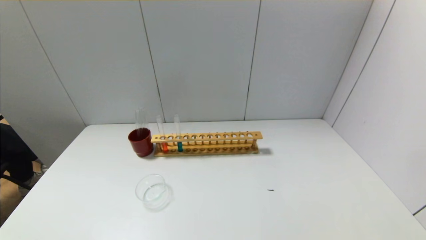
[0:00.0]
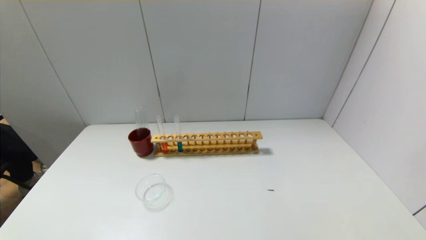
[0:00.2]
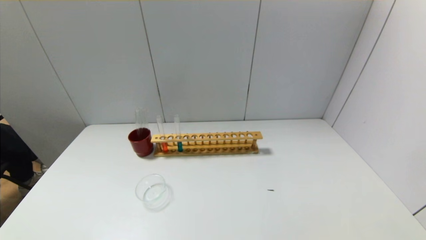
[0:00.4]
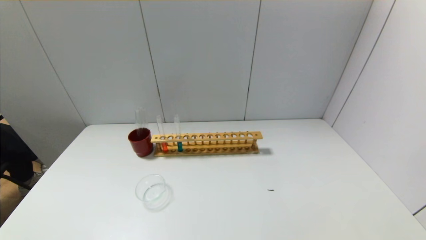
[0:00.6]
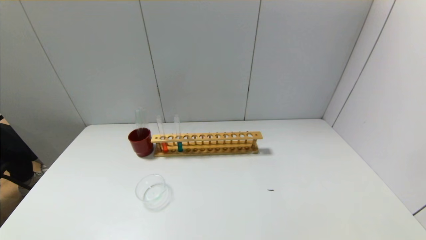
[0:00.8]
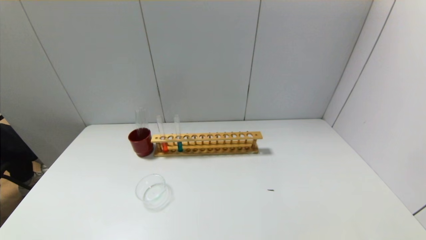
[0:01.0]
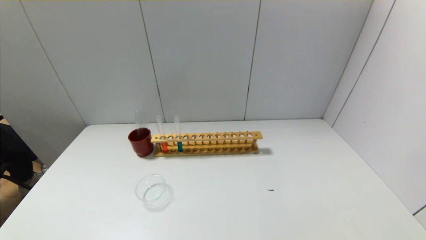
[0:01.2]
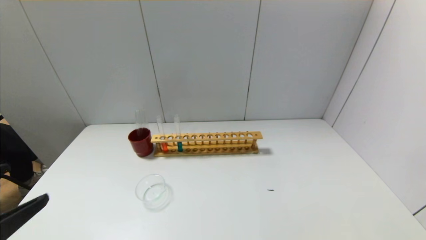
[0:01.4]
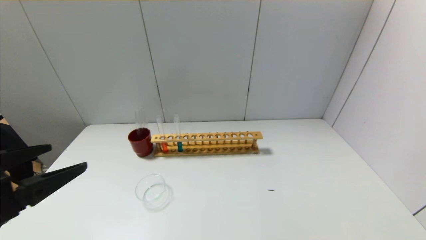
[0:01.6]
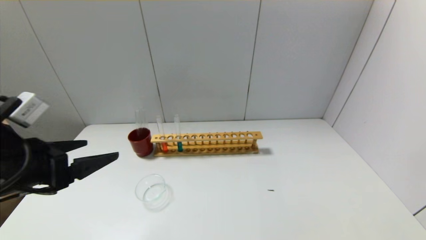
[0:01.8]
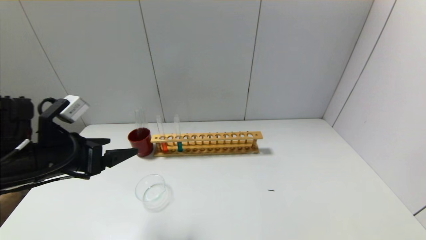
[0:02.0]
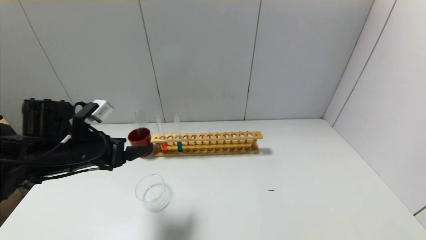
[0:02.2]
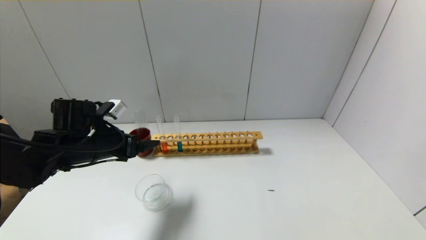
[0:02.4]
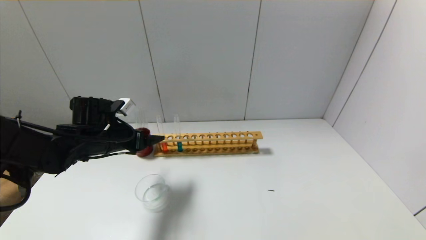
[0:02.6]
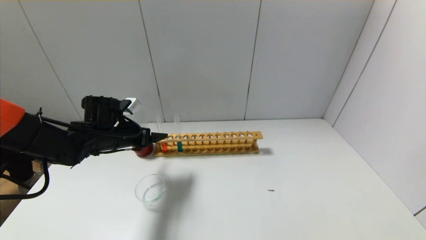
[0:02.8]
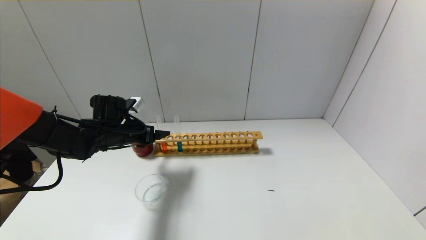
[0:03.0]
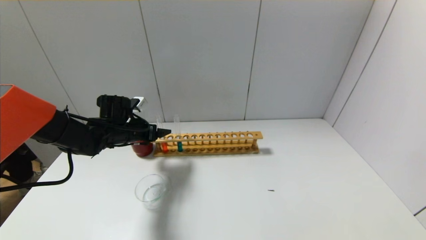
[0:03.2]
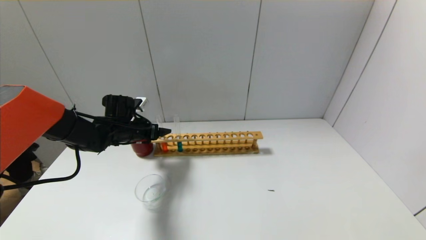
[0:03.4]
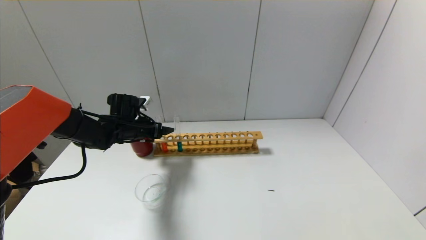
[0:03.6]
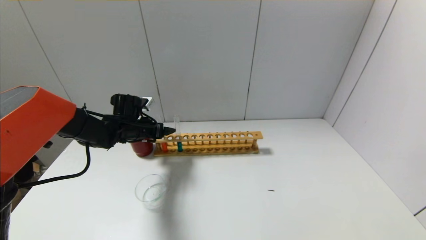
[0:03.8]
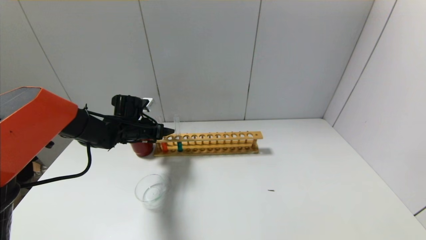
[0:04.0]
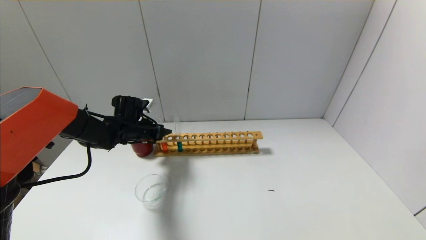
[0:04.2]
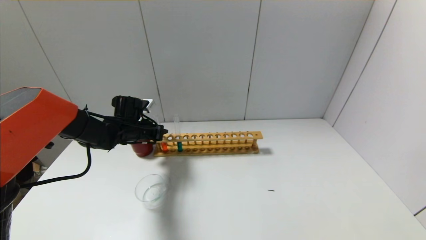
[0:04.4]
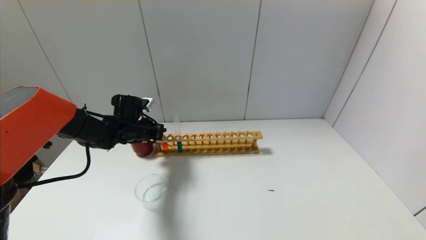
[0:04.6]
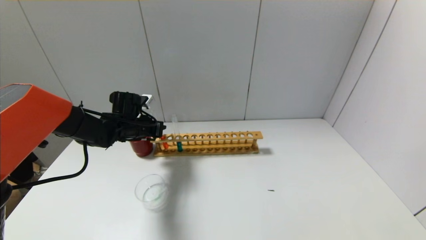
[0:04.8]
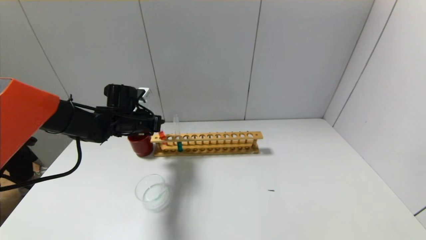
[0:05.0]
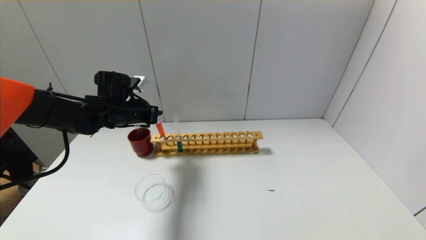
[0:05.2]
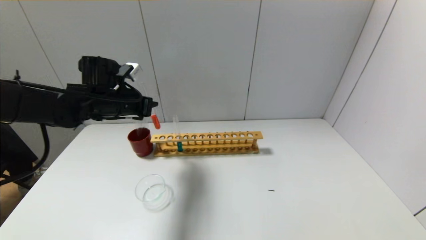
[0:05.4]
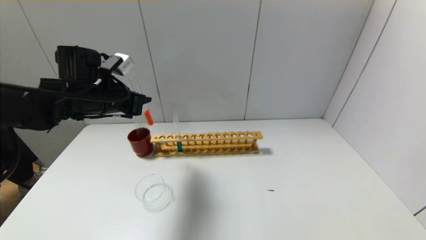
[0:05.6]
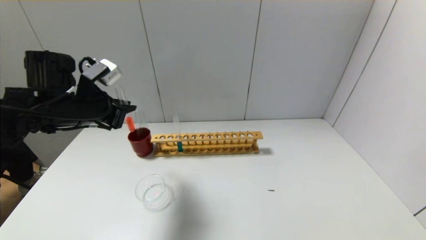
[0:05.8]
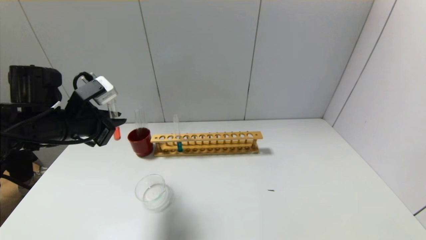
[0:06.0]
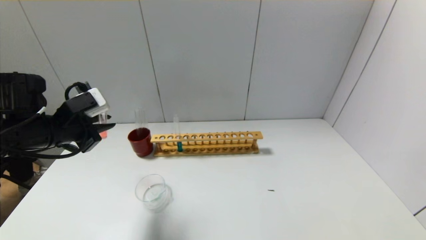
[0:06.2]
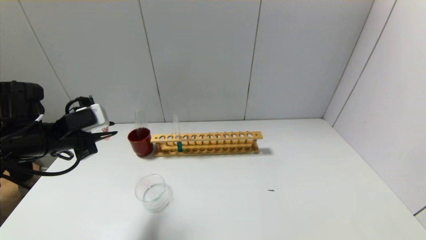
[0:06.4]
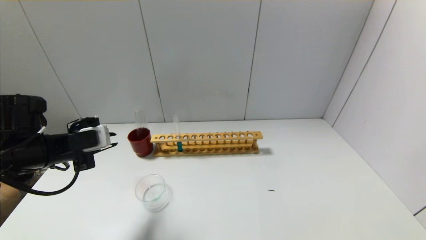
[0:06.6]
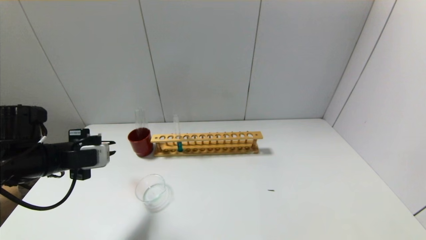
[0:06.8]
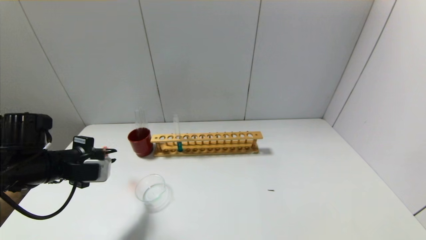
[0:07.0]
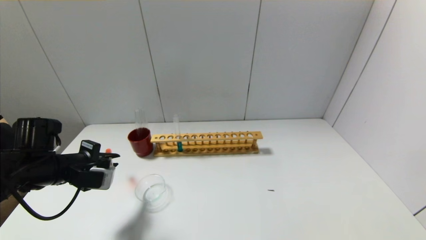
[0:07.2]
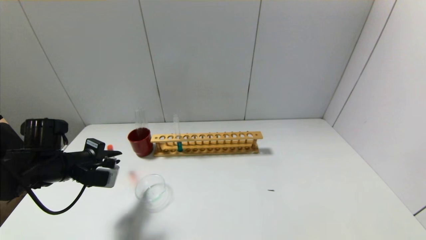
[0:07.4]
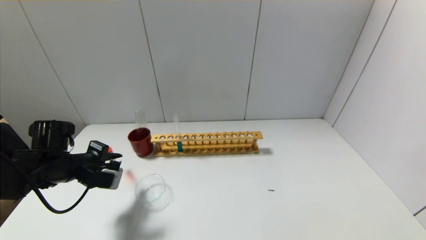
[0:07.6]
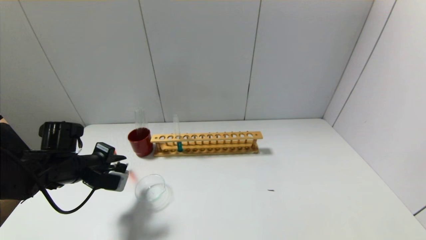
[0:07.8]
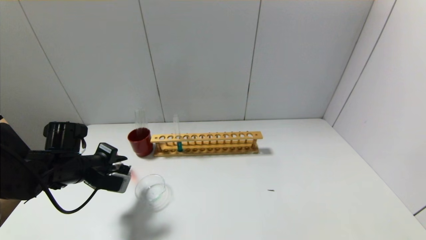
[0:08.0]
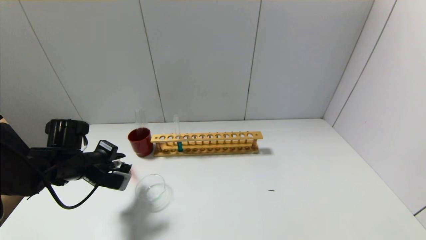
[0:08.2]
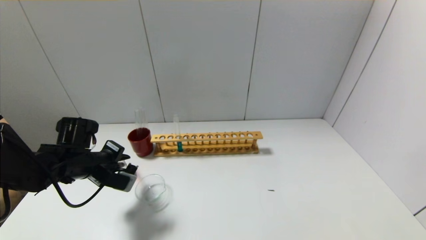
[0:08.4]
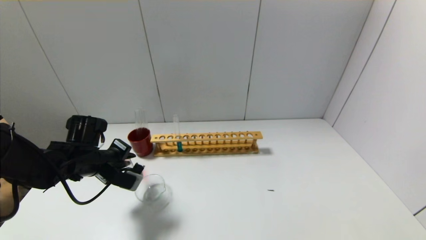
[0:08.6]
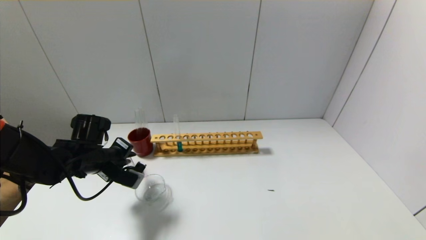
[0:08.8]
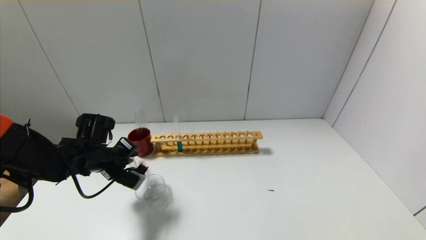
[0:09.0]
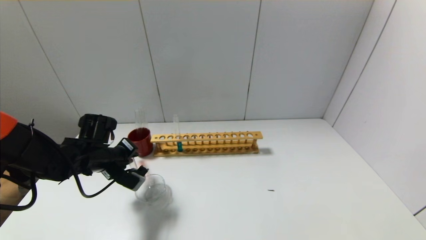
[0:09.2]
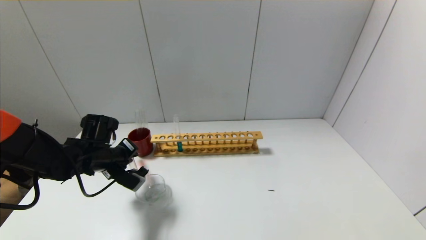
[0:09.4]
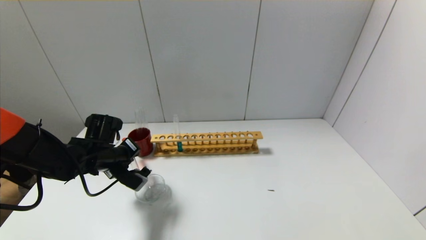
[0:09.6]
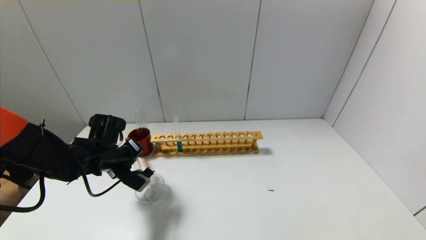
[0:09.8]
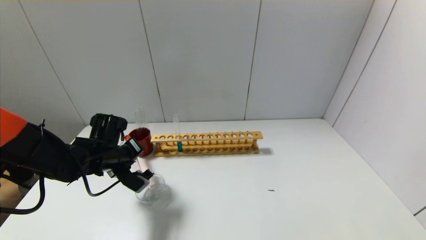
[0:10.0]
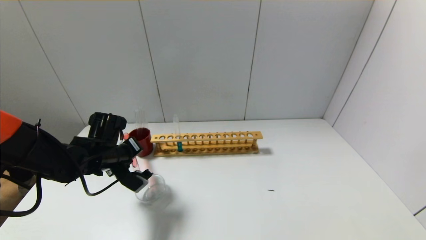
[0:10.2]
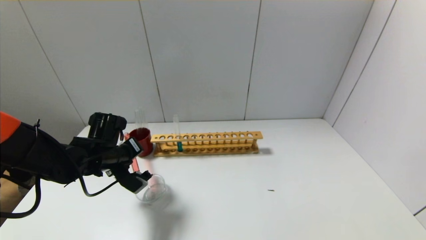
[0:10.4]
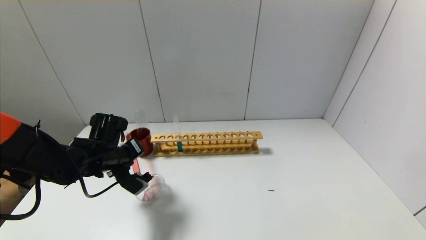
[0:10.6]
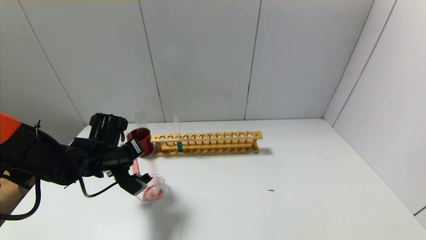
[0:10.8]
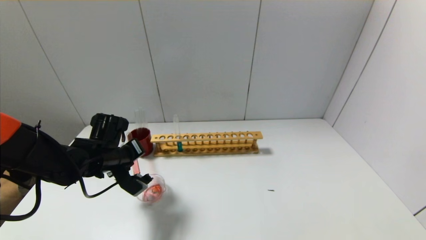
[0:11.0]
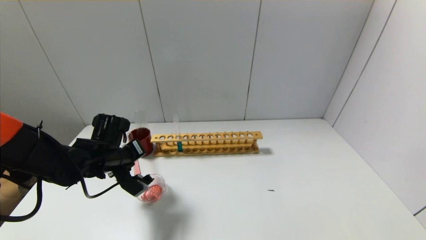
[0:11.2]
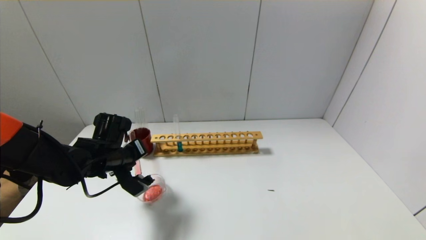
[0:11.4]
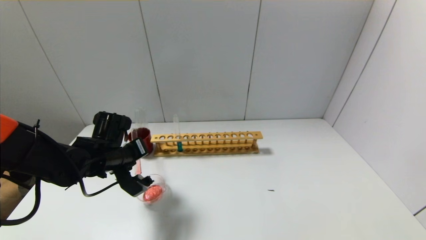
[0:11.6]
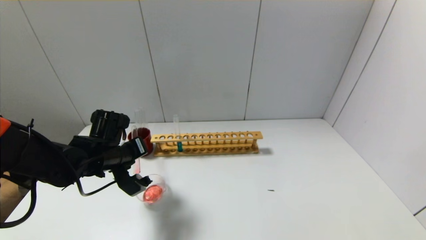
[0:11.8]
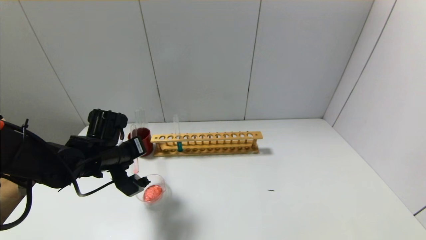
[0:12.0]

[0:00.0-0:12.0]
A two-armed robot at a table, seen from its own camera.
Step, 0:00.0 to 0:04.6: Grasp the red reagent with the left gripper.
0:00.0 to 0:01.6: The left gripper shifts about 20 cm upward and forward.
0:01.6 to 0:03.0: The left gripper moves forward and downward, some 30 cm.
0:03.0 to 0:04.4: The left gripper moves roughly 5 cm, and closes.
0:04.4 to 0:06.0: The left gripper is displaced backward and upward by some 20 cm.
0:06.0 to 0:07.6: The left gripper shifts approximately 10 cm downward.
0:07.6 to 0:09.0: The left gripper shifts by approximately 5 cm.
0:09.0 to 0:10.4: There are only small adjustments of the grippers.
0:10.4 to 0:12.0: The grippers move only a little.

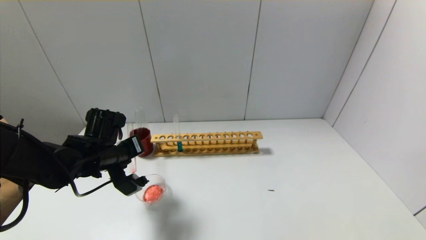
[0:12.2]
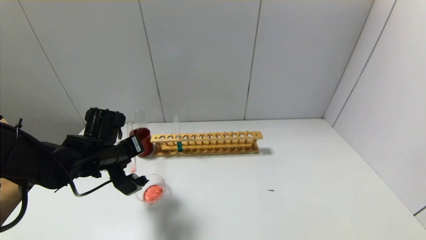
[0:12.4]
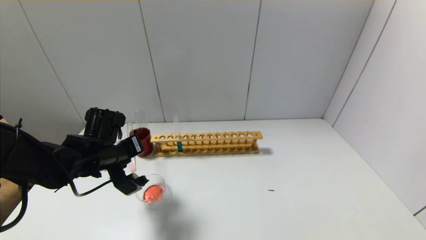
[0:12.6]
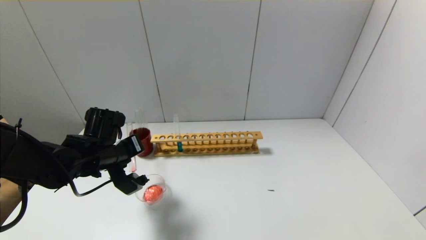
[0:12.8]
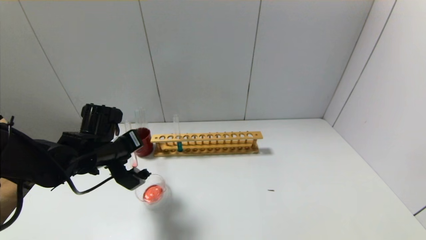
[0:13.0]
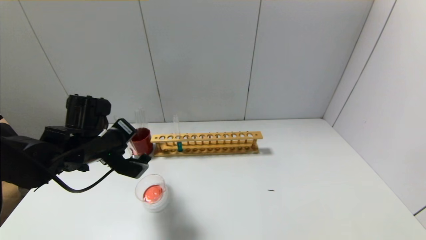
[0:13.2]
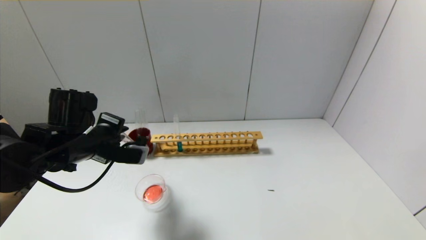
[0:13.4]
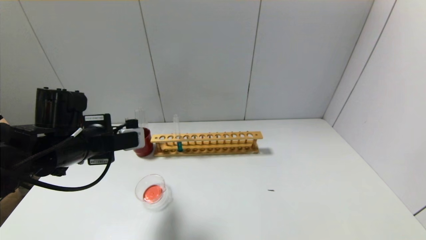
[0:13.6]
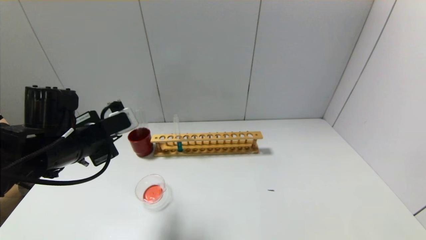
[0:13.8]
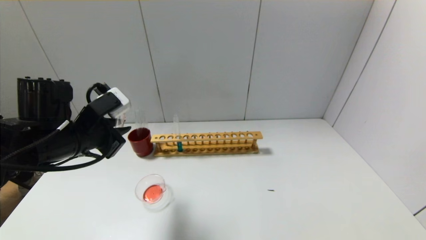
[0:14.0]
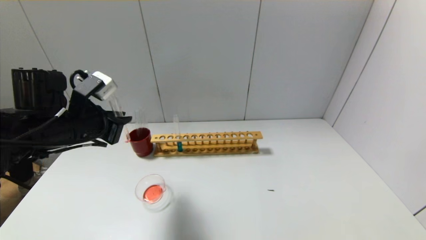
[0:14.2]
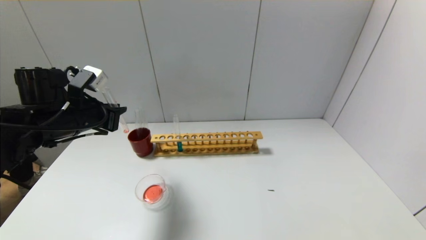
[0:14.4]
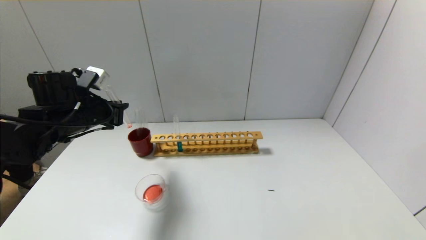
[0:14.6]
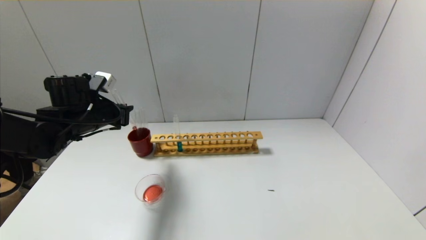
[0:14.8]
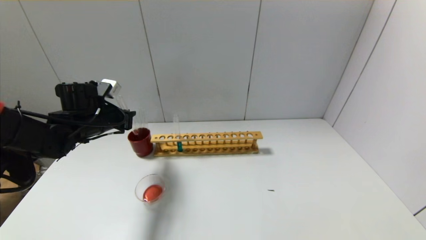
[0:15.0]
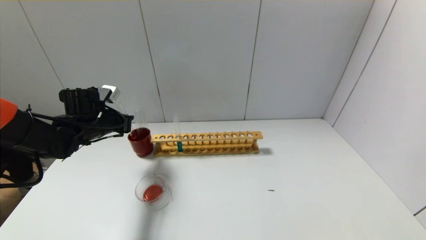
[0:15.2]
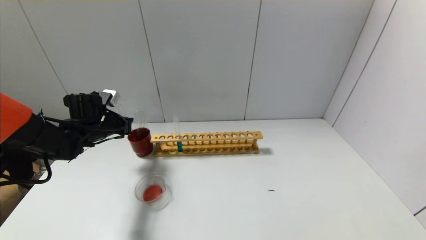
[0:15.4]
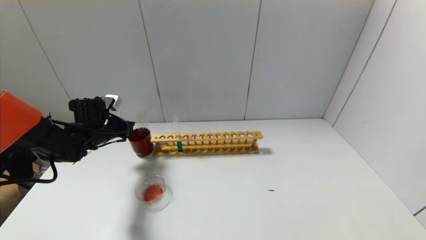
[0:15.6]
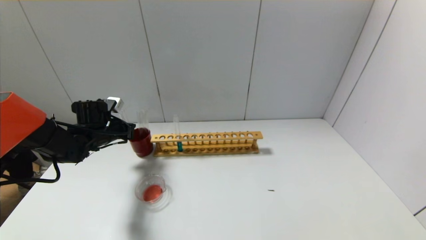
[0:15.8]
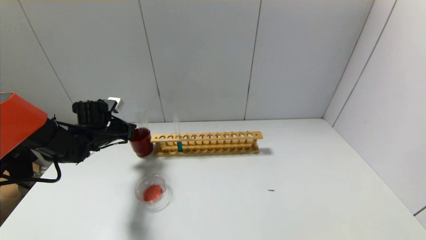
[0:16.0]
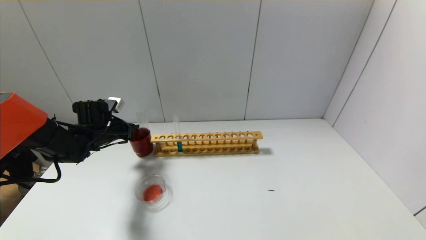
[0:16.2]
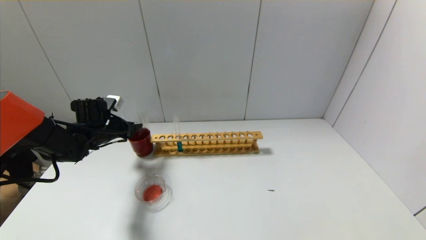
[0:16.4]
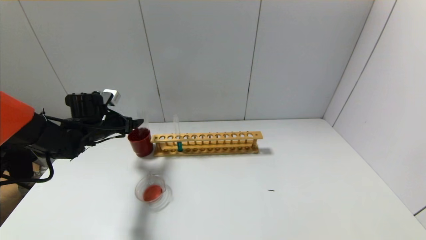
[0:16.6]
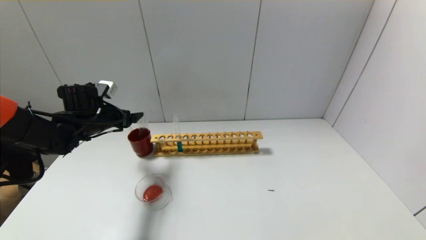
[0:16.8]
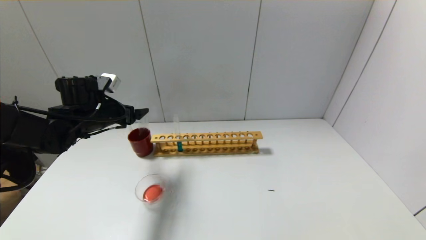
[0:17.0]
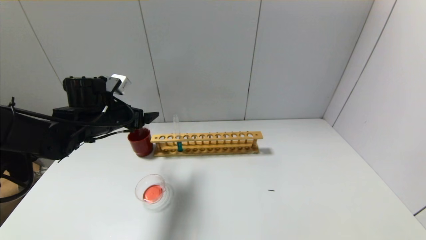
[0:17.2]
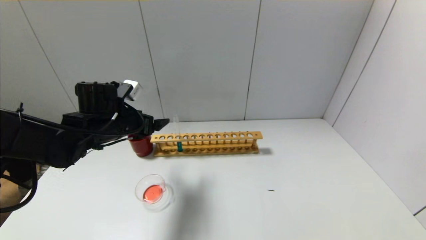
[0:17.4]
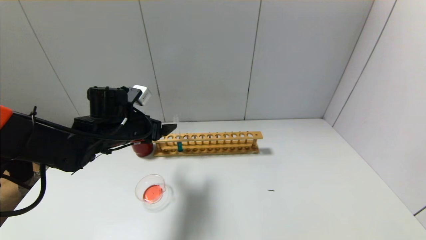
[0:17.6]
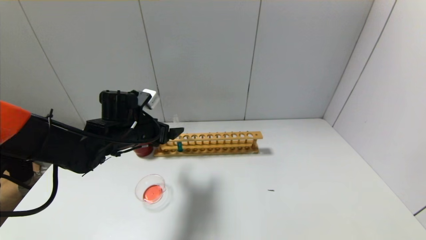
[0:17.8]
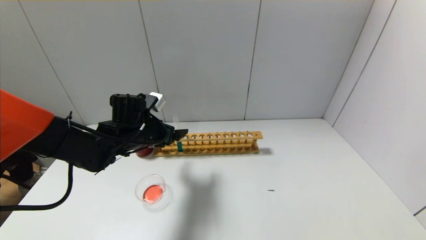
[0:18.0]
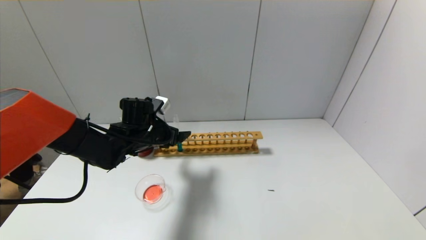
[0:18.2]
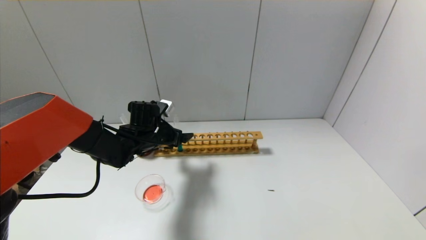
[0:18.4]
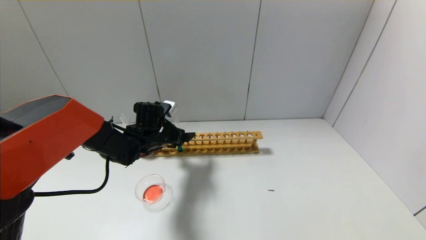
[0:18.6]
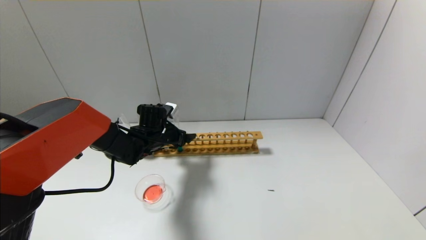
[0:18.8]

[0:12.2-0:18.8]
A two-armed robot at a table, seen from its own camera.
Step, 0:13.4 to 0:16.2: Place the test tube into the brown cup with the left gripper.
0:12.2 to 0:13.8: The left gripper is displaced upward and backward by roughly 10 cm.
0:13.8 to 0:15.4: The left gripper travels forward, downward and to the left by roughly 15 cm.
0:15.4 to 0:17.2: The left gripper goes roughly 10 cm to the right and upward, and opens its fingers.
0:17.2 to 0:18.8: The left gripper is displaced downward, to the right and forward by approximately 15 cm.
